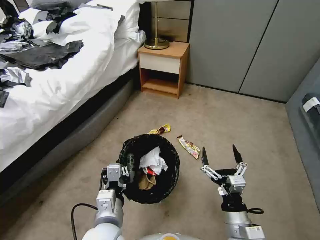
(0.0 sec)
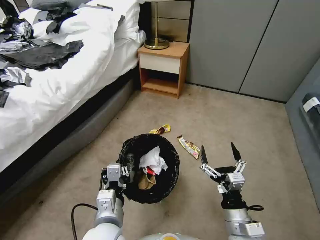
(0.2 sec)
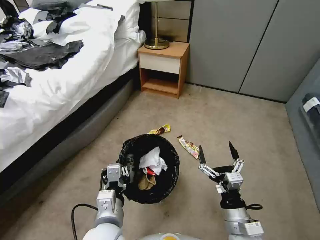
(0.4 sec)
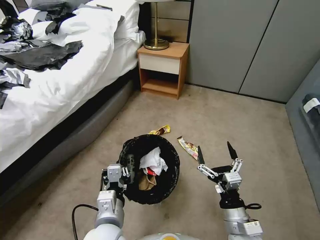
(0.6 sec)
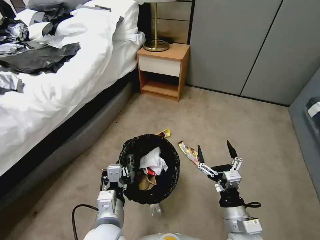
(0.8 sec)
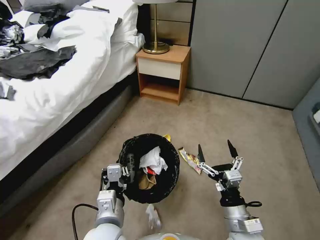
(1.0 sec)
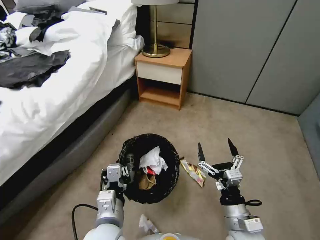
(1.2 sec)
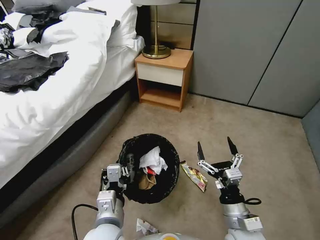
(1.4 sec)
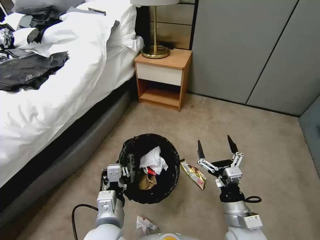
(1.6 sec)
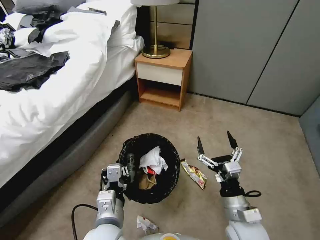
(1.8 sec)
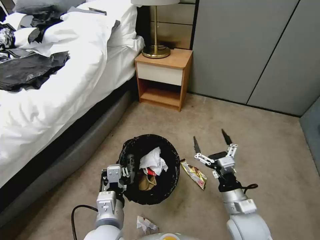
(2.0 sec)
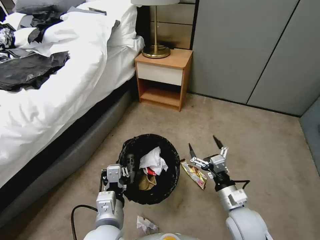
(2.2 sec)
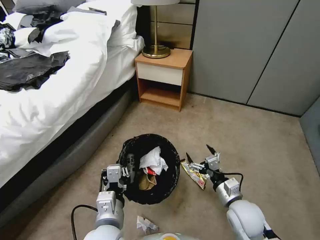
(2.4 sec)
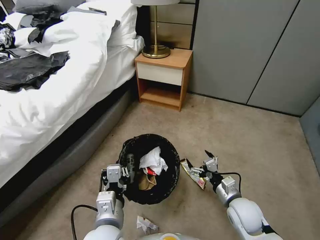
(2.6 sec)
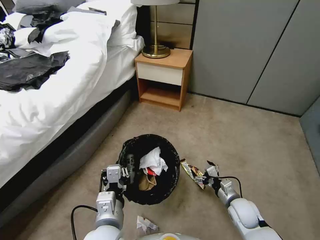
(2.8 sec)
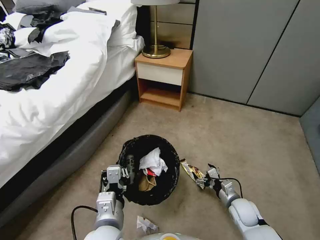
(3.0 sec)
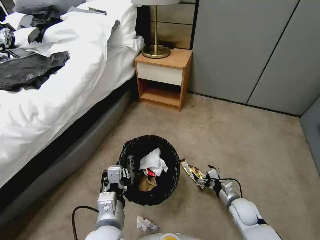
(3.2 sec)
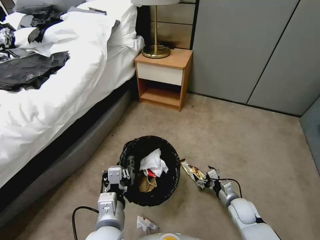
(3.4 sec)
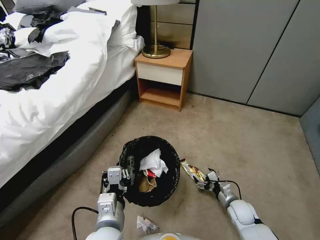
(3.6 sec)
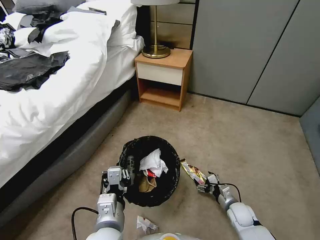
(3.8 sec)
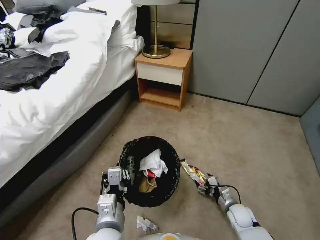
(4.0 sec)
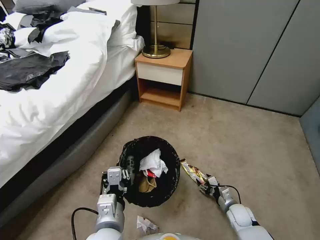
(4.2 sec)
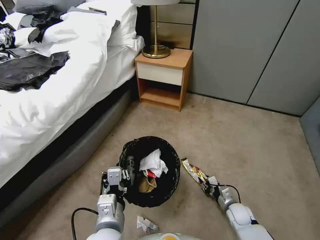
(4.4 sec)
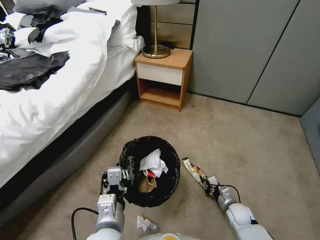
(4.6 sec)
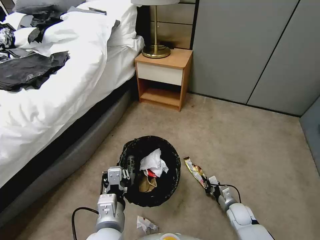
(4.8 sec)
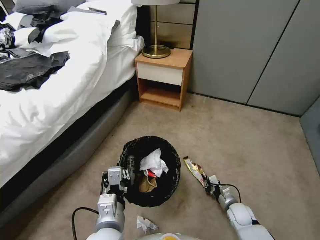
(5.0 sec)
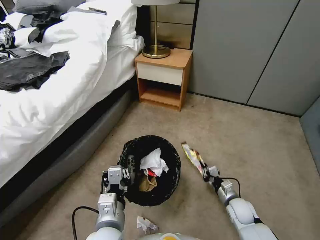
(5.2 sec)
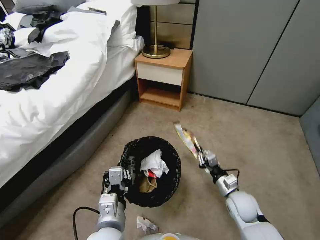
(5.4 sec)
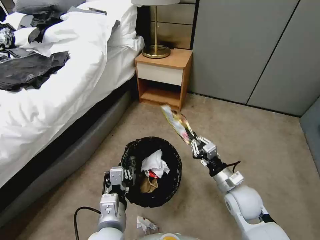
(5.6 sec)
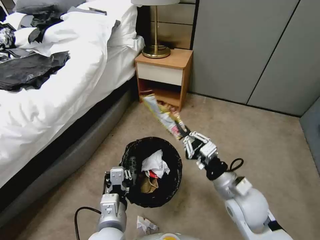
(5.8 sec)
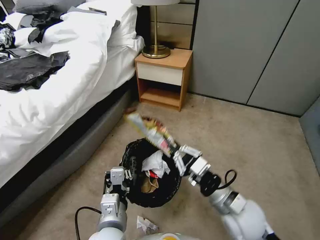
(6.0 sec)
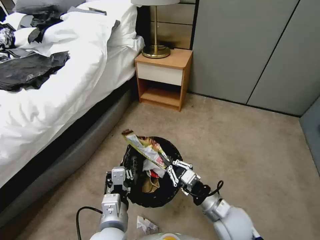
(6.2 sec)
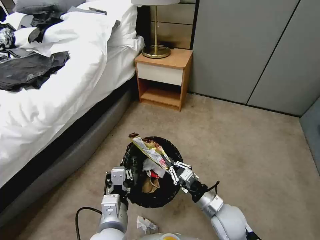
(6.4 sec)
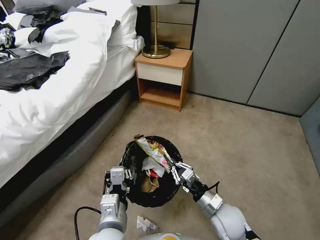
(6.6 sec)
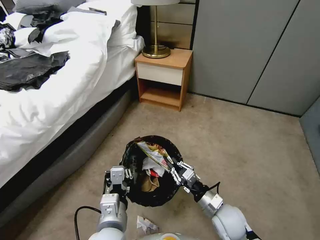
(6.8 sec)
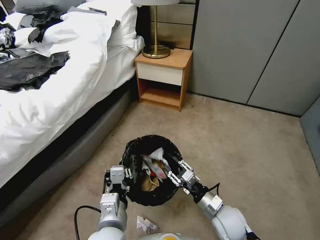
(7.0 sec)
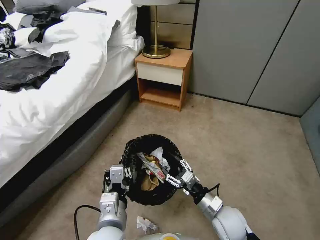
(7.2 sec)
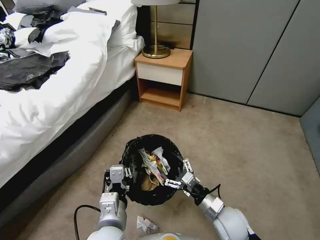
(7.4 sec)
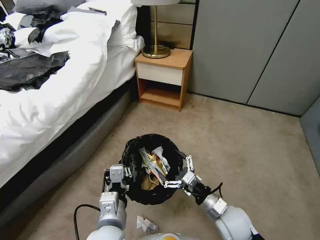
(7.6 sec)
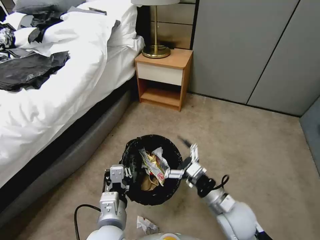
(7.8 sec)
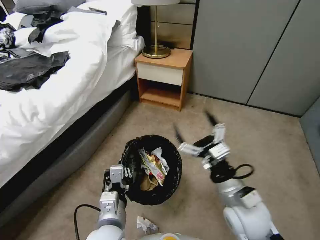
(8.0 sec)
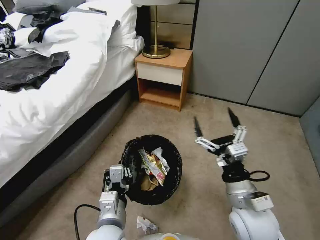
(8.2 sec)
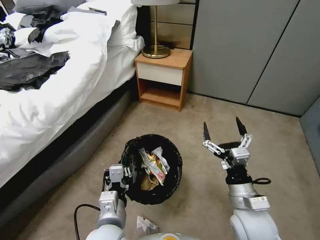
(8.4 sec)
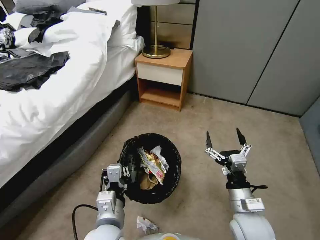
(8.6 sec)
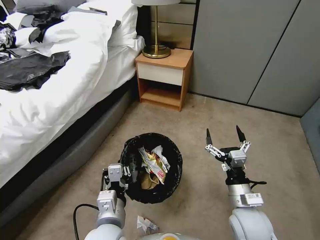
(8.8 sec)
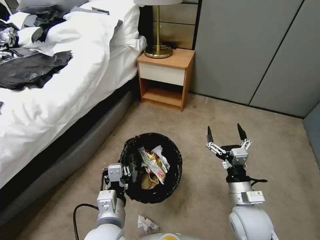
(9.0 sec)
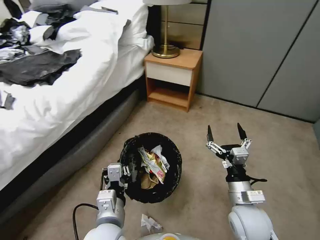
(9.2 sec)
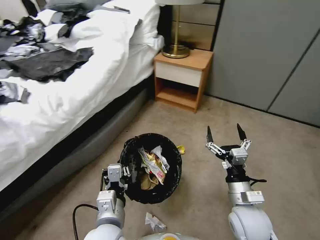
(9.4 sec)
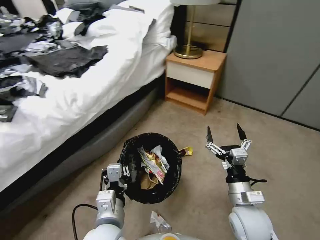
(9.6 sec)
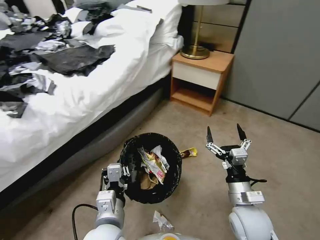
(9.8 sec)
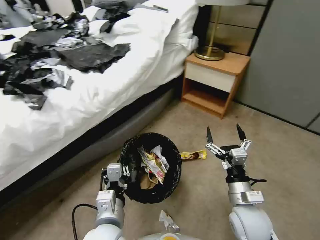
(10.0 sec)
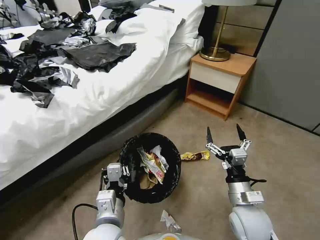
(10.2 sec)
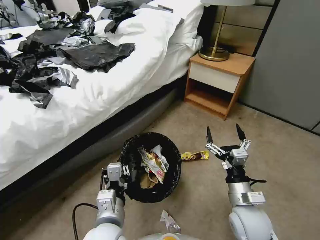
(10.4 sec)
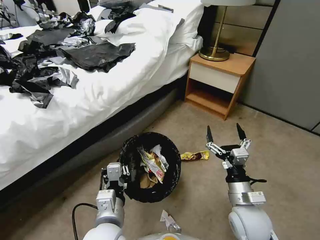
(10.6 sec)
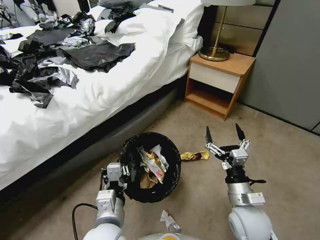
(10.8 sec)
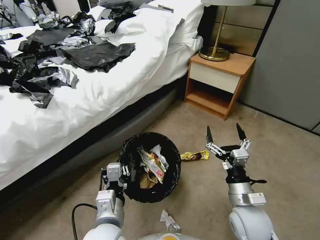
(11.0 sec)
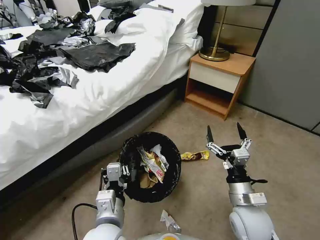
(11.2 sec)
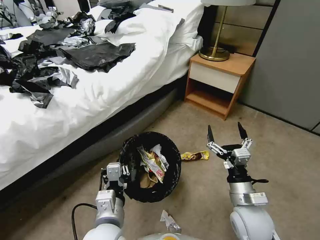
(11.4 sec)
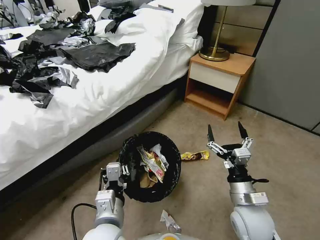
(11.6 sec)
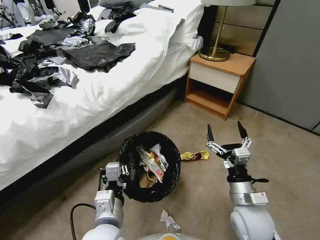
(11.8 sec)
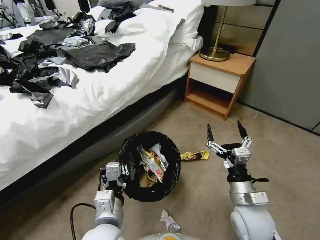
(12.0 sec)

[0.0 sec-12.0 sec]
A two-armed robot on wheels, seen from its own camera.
Task of the whole recording: Pick up the trash bin, then pick up the garbage from the floor and place it into the trash bin.
1.6 sec to 3.0 sec: The right gripper is displaced downward, forward and to the right by some 20 cm.
3.0 sec to 4.4 sec: The right gripper shifts about 10 cm downward, and closes.
4.4 sec to 6.0 sec: The right gripper moves upward and to the left, some 30 cm, and closes its fingers.
6.0 sec to 7.6 sec: The right gripper heads downward, covering approximately 10 cm, and opens up.
7.6 sec to 9.0 sec: The right gripper is displaced upward by some 5 cm.
10.4 sec to 12.0 sec: Both grippers stay put.

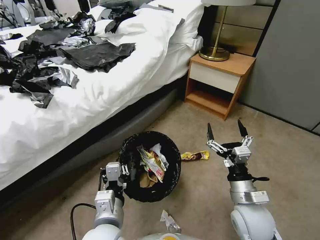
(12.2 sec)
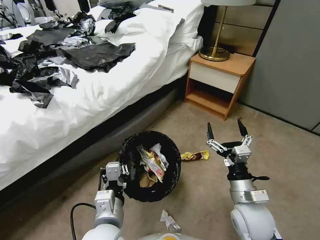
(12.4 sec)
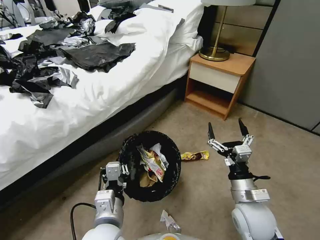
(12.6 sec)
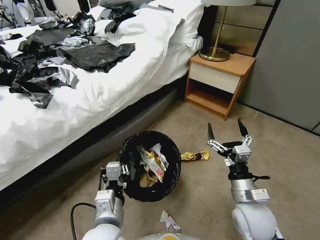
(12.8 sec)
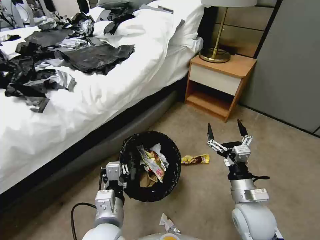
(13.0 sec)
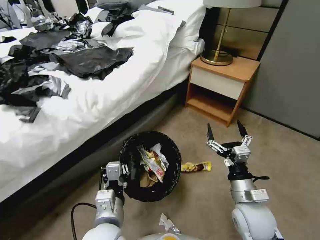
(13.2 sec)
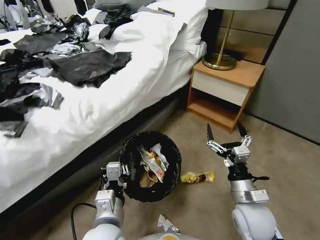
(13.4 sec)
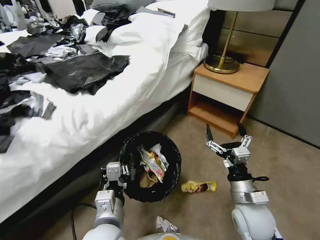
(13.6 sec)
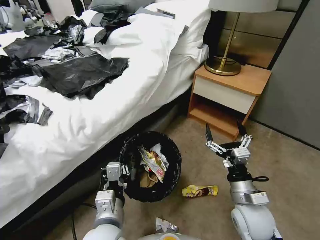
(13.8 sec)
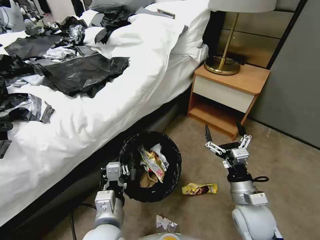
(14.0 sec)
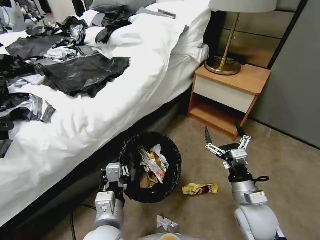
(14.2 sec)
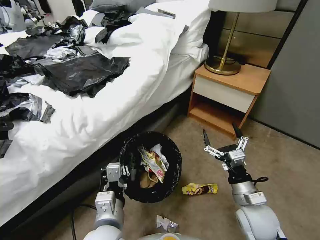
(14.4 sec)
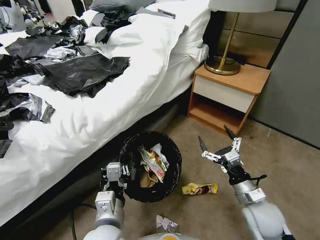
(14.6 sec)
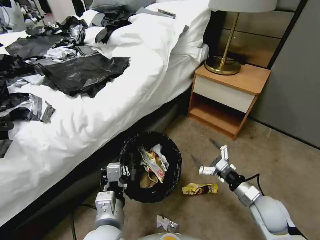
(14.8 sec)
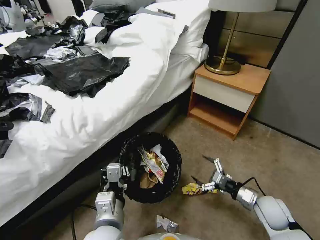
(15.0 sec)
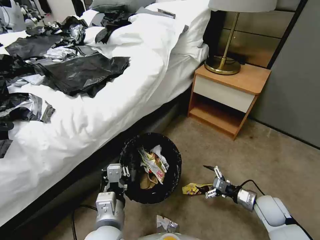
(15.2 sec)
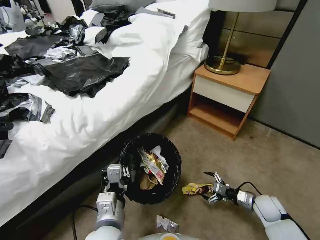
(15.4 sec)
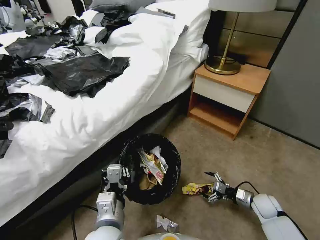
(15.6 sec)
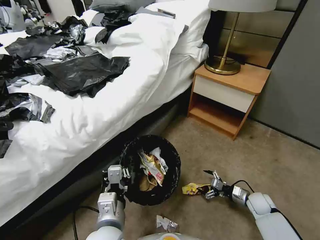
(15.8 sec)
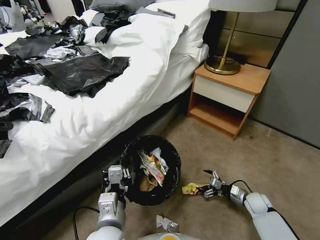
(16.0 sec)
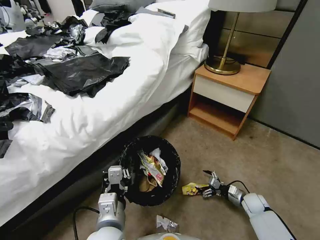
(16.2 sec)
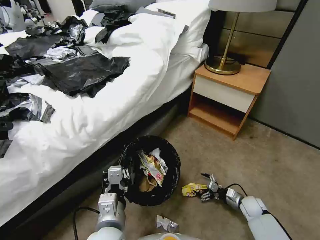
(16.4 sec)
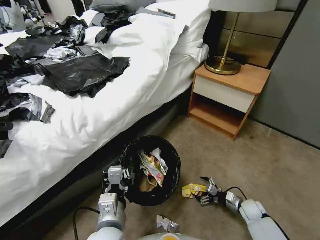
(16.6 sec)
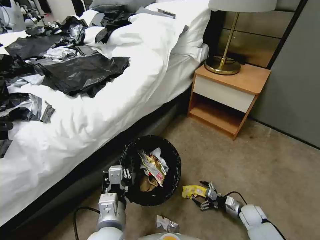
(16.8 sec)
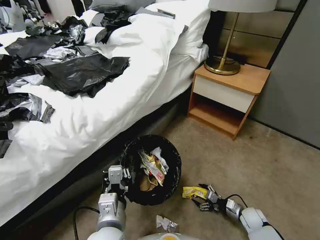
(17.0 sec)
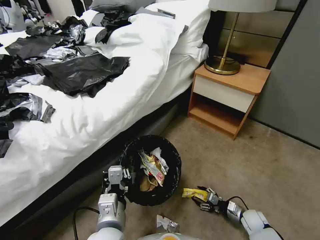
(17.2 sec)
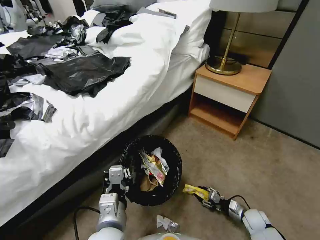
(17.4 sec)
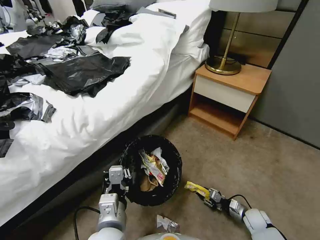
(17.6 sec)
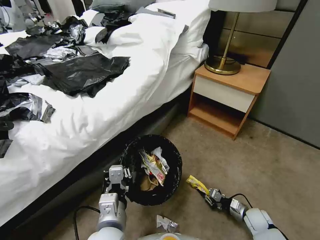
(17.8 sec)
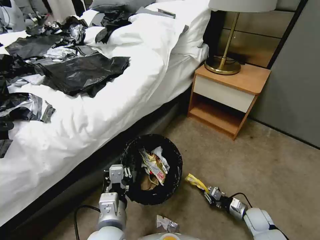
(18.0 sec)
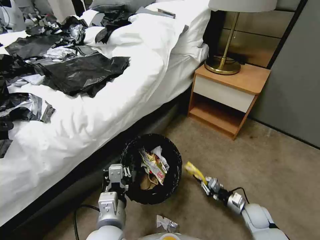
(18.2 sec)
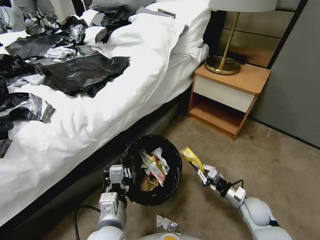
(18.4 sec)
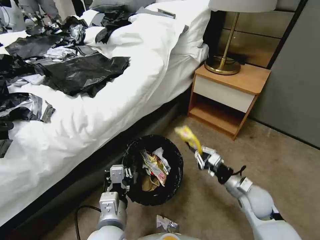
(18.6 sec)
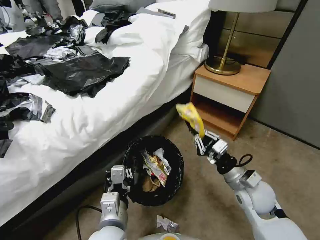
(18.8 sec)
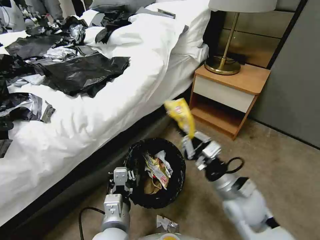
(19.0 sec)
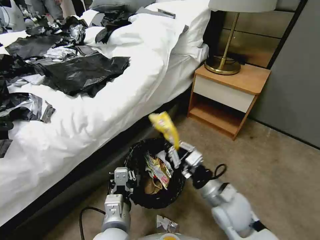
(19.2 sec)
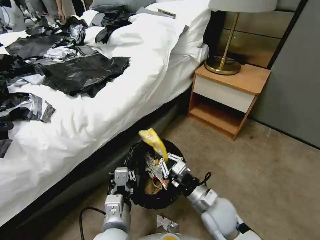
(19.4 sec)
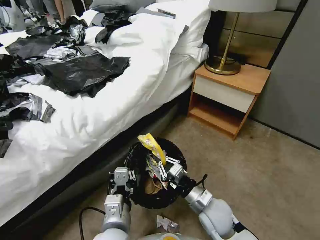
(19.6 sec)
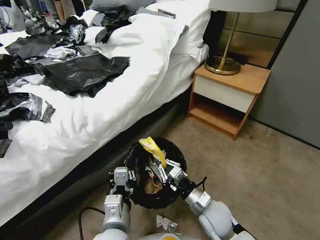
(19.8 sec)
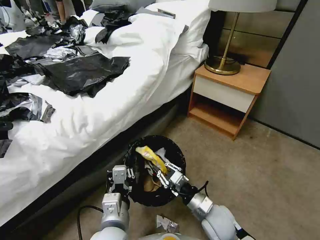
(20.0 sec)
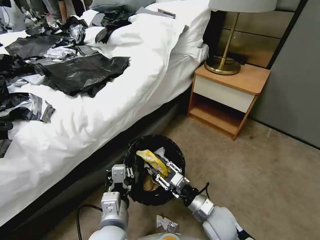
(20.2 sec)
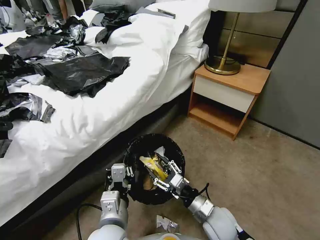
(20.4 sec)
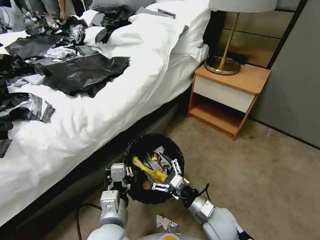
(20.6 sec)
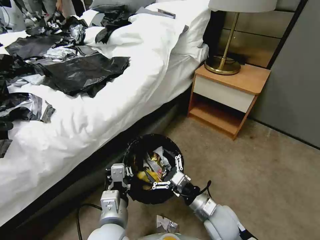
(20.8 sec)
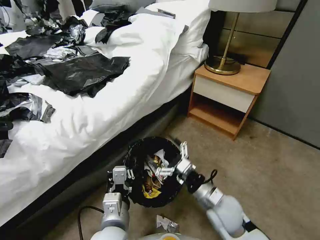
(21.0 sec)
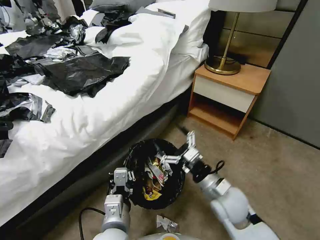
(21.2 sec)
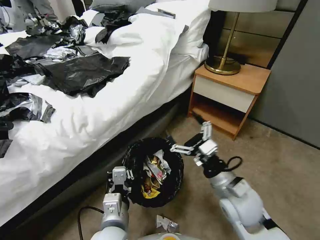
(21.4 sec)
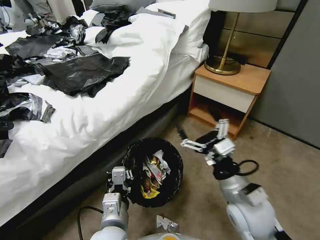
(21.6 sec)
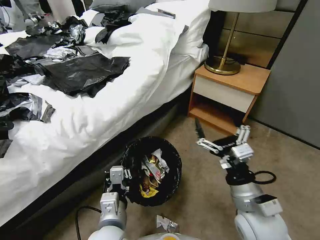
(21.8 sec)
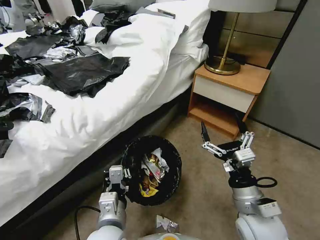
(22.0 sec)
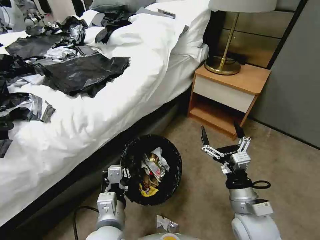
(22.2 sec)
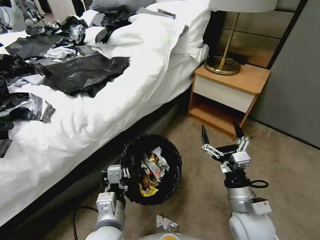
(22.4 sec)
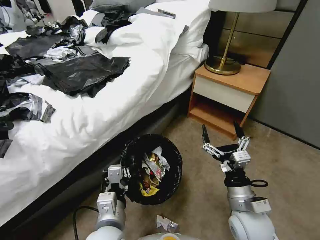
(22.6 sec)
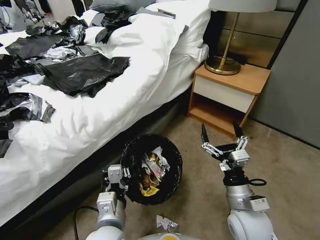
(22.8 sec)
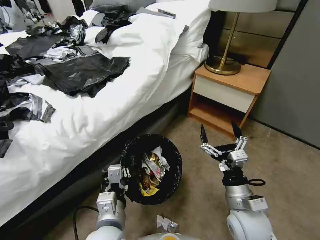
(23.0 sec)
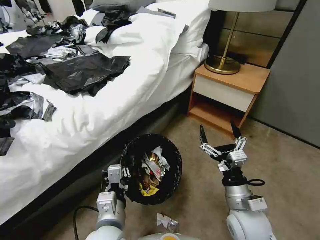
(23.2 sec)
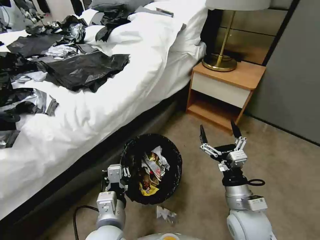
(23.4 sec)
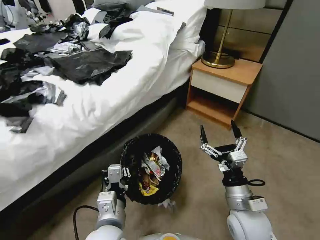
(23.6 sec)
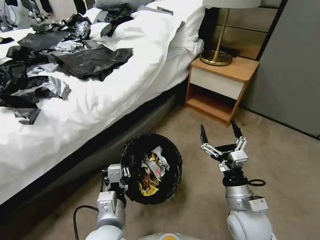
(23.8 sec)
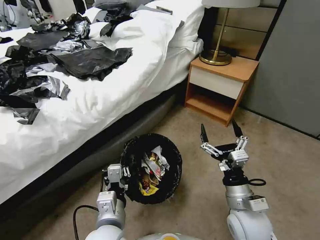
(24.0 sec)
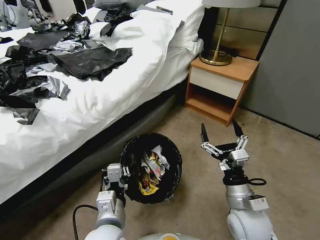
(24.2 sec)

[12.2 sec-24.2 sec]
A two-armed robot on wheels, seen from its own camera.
Task of the whole recording: Pick up the trash bin, then pick up the garbage from the floor and place it into the trash bin.
13.8 sec to 15.2 sec: The right gripper goes some 20 cm to the right and downward.
15.2 sec to 16.6 sec: The right gripper heads downward, covering some 15 cm.
16.6 sec to 18.2 sec: The right gripper is displaced upward by about 5 cm, and closes.
18.2 sec to 19.8 sec: The right gripper heads to the left and upward, covering about 25 cm.
19.8 sec to 21.2 sec: The right gripper is displaced upward by approximately 5 cm, and opens.
21.2 sec to 22.6 sec: The right gripper travels upward and back again, some 10 cm each way.
